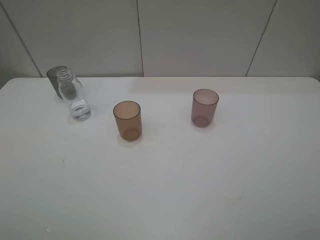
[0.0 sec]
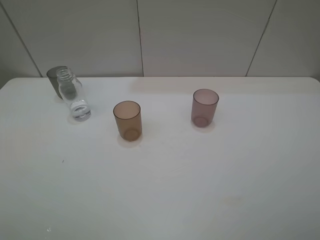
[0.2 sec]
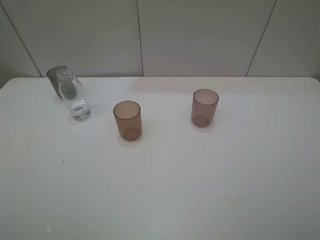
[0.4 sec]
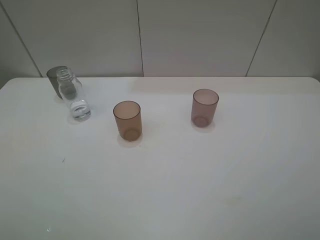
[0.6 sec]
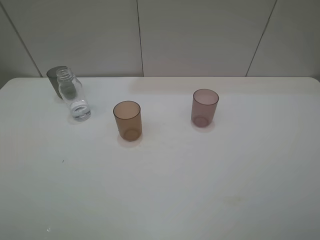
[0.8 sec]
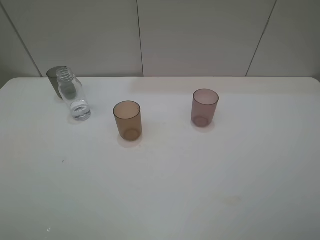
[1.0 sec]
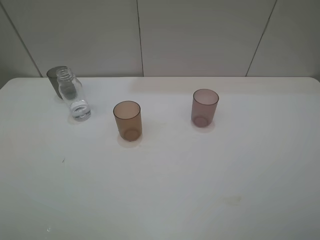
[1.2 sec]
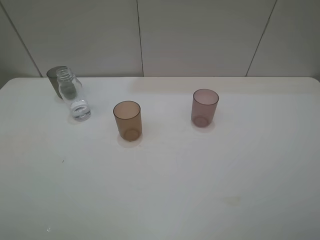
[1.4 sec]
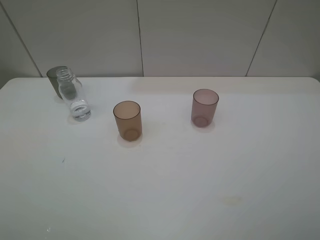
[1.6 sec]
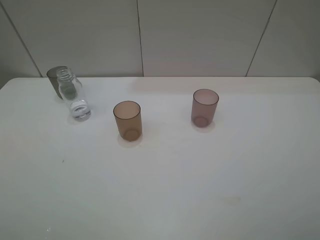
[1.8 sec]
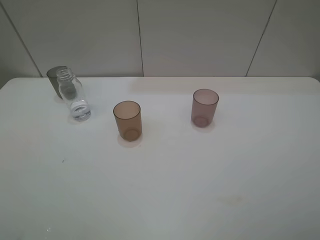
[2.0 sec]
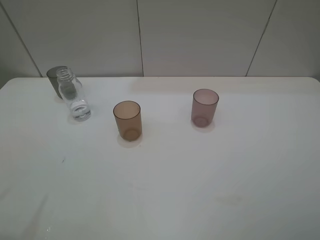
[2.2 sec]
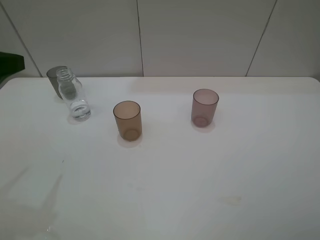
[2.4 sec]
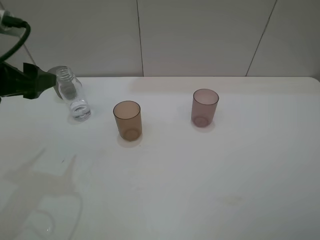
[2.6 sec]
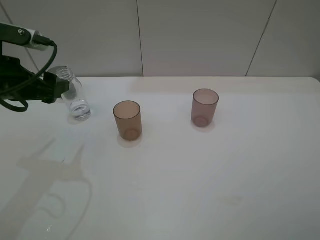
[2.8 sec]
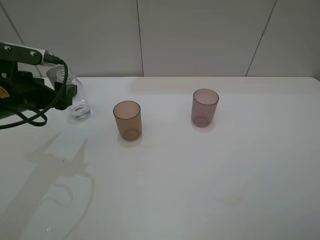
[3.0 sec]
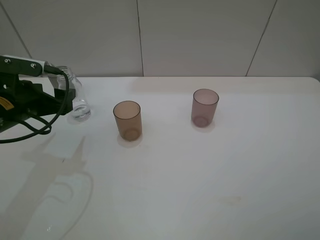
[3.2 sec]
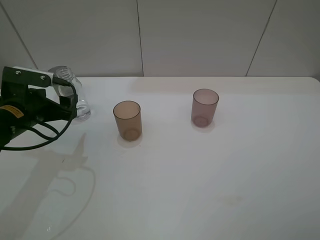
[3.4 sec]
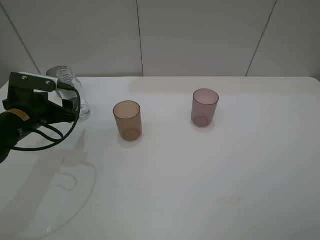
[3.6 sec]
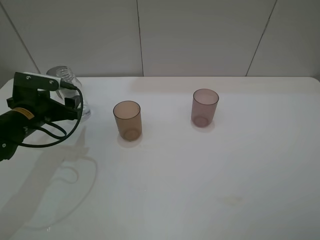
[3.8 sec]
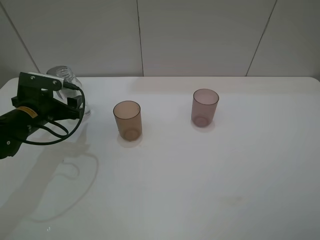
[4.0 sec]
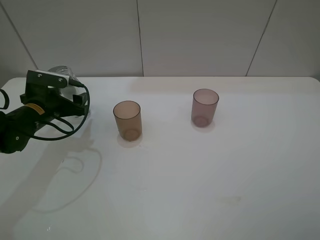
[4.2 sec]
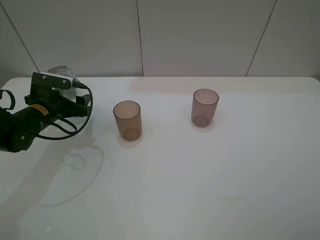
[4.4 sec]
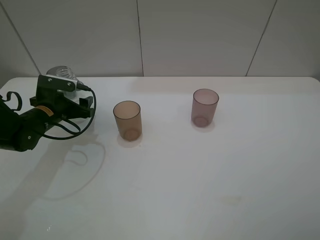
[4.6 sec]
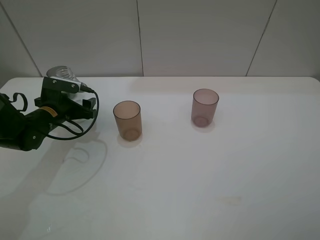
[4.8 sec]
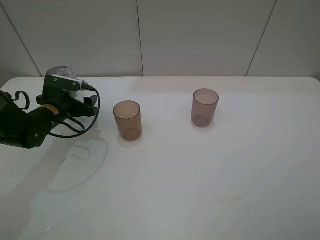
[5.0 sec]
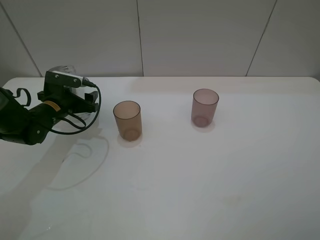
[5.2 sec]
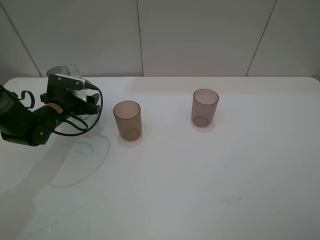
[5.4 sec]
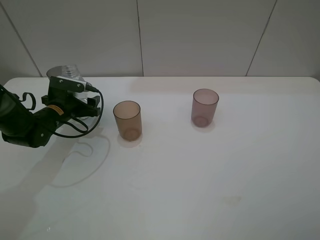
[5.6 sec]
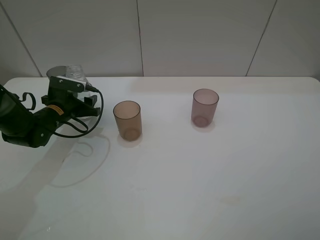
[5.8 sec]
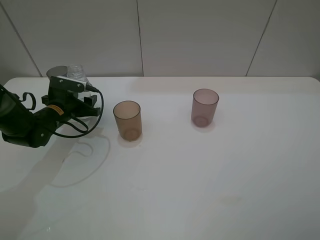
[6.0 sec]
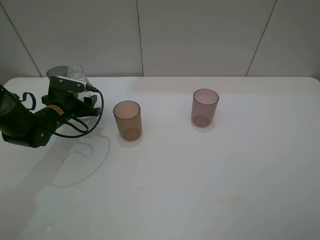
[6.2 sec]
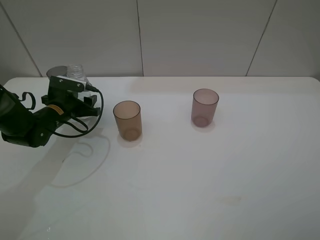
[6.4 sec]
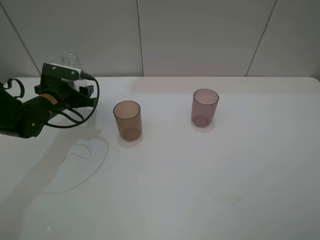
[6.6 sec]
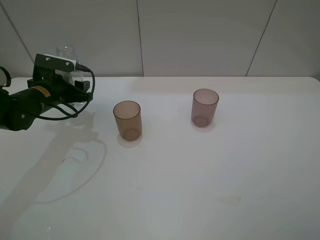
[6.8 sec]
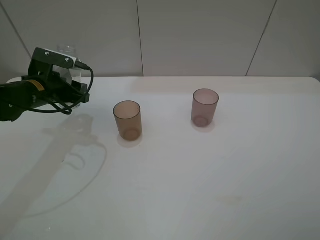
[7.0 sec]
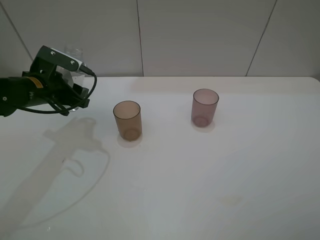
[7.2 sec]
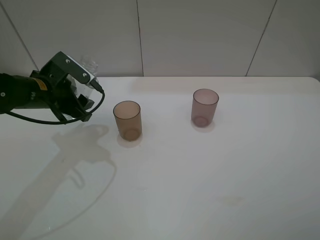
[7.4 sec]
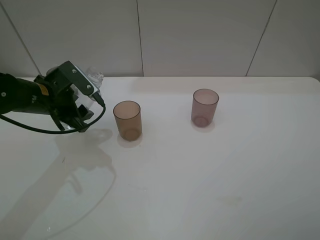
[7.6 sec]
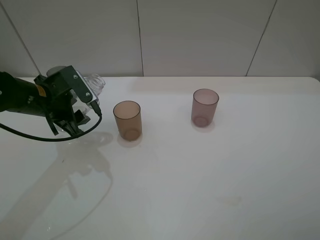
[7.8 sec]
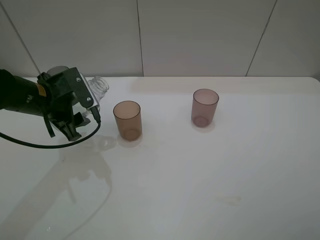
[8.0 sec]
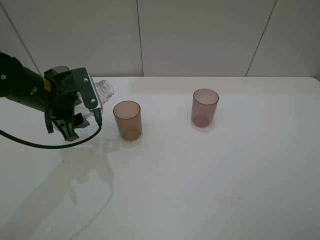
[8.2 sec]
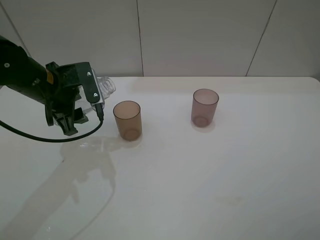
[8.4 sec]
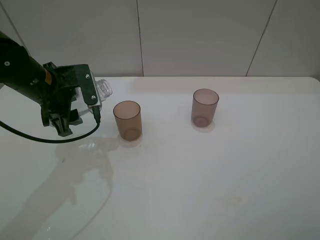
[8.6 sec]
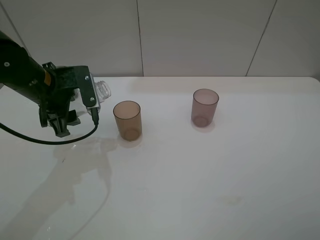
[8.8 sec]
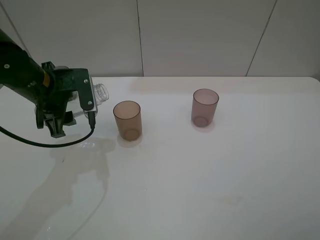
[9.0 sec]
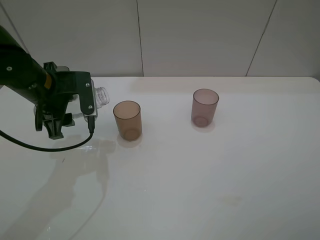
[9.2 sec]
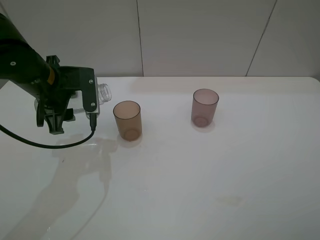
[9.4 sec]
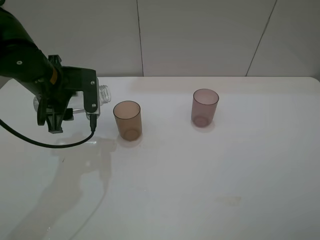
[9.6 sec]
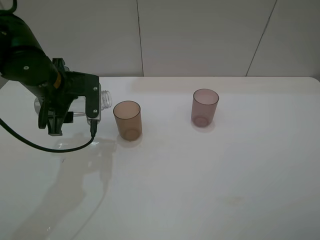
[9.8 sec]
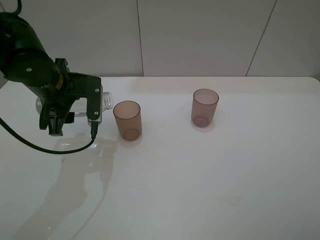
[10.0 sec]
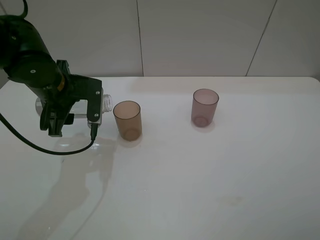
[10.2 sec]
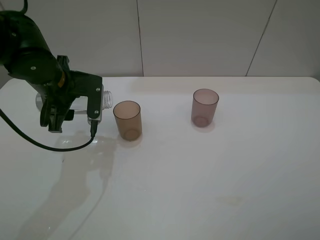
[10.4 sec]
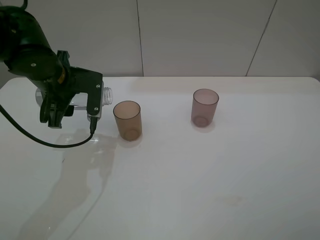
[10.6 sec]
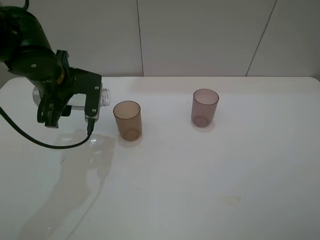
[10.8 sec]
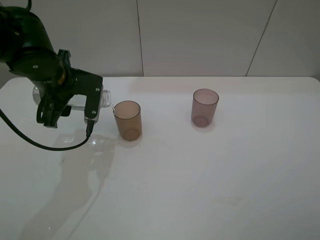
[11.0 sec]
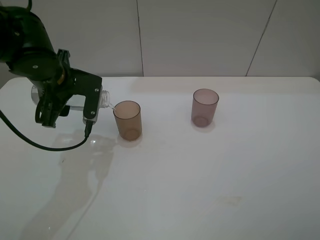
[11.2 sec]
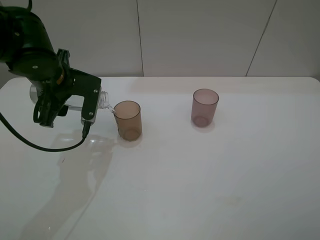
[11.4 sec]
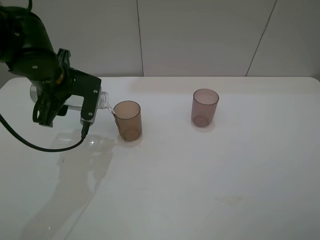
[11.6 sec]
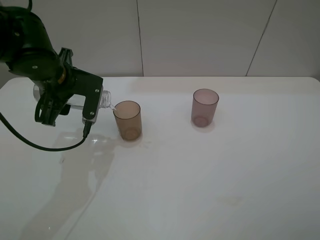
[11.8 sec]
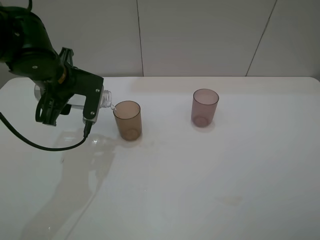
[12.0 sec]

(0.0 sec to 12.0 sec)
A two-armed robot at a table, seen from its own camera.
Task of the whole recording: pick up the bottle filled with water and pour water into the middle cup of the three cups.
0.0 sec - 1.6 sec: Both grippers stay put.
1.6 sec - 3.0 sec: The left gripper heads forward and downward, covering some 30 cm.
3.0 sec - 4.4 sec: The left gripper shifts about 10 cm downward and forward.
4.4 sec - 6.0 sec: The left gripper closes.
6.0 sec - 7.6 sec: The left gripper is displaced upward and backward by approximately 10 cm.
9.0 sec - 10.4 sec: The grippers stay close to where they were, moving slightly.
10.4 sec - 12.0 sec: The grippers stay close to where they were, moving slightly.

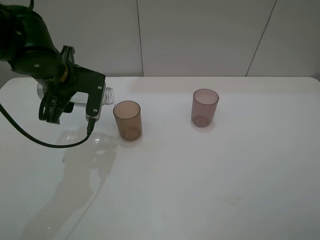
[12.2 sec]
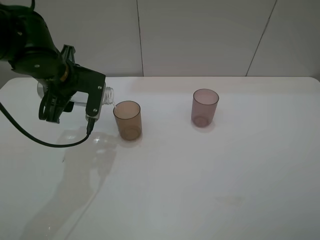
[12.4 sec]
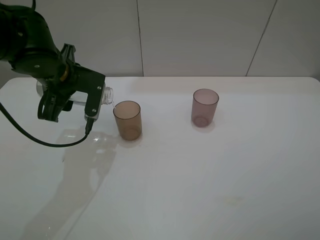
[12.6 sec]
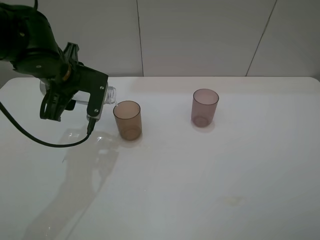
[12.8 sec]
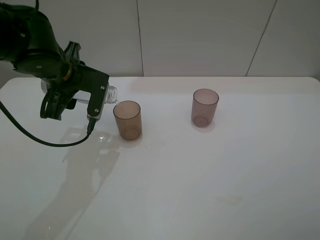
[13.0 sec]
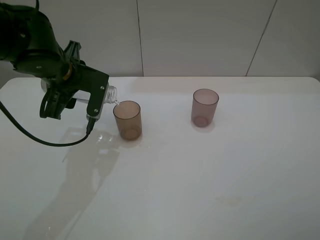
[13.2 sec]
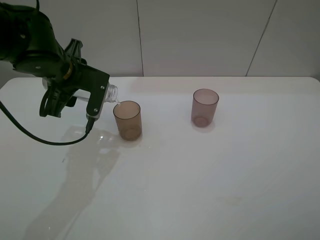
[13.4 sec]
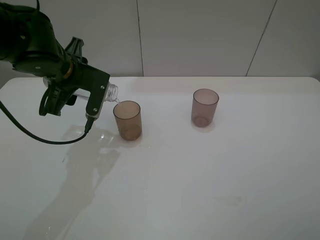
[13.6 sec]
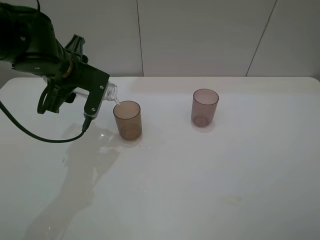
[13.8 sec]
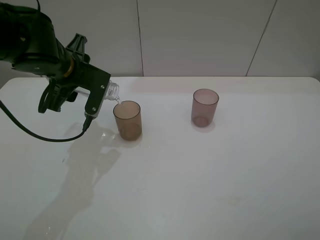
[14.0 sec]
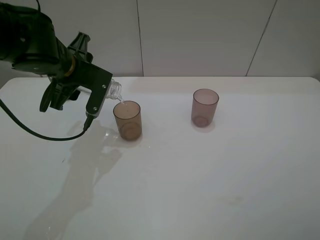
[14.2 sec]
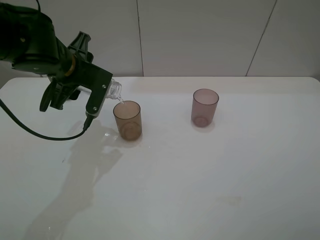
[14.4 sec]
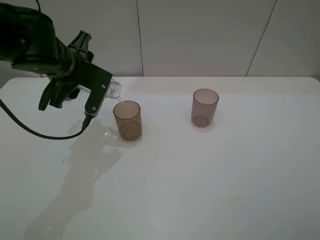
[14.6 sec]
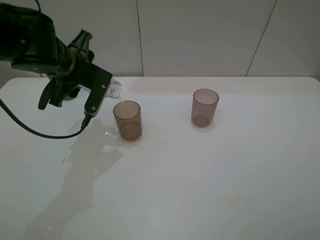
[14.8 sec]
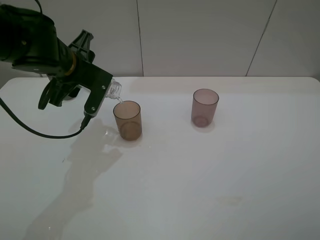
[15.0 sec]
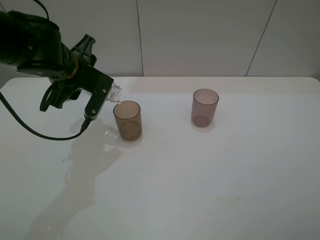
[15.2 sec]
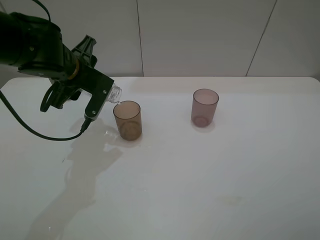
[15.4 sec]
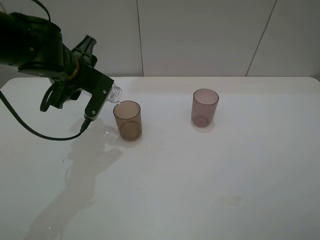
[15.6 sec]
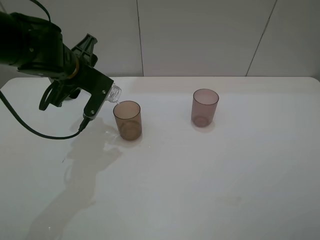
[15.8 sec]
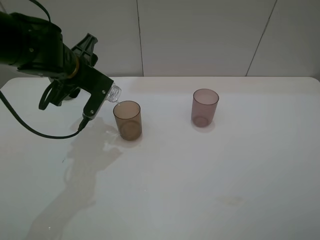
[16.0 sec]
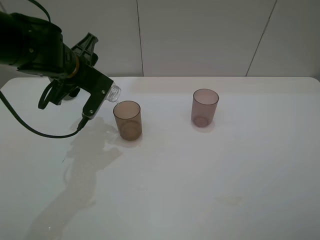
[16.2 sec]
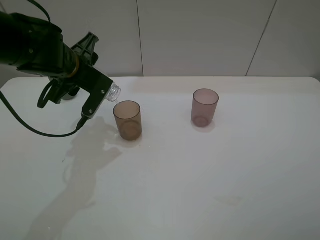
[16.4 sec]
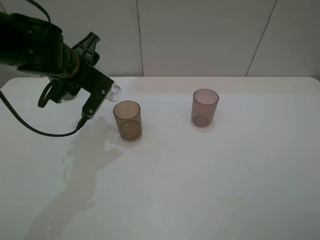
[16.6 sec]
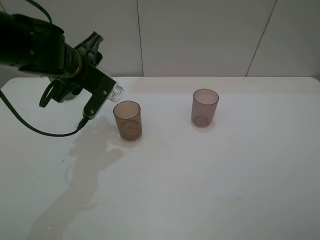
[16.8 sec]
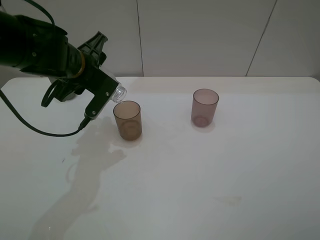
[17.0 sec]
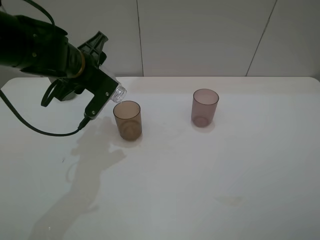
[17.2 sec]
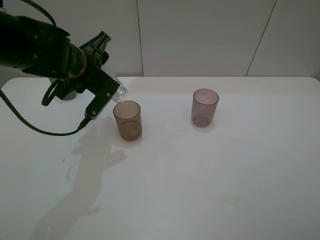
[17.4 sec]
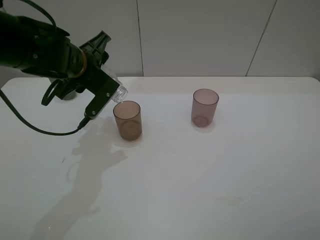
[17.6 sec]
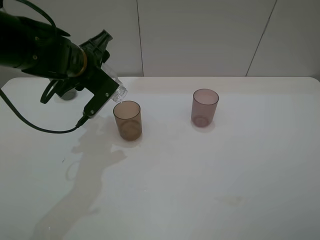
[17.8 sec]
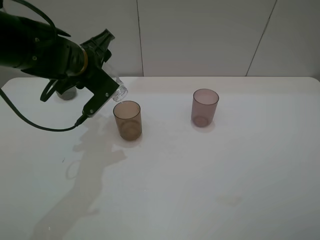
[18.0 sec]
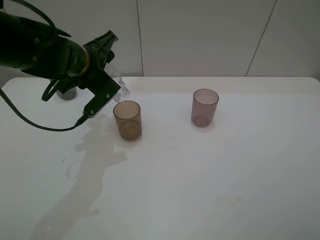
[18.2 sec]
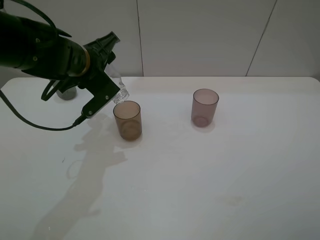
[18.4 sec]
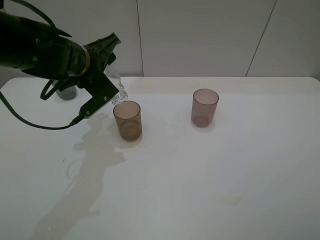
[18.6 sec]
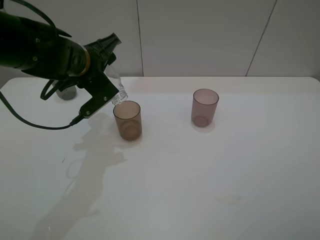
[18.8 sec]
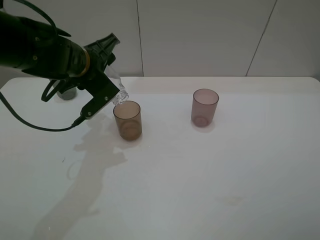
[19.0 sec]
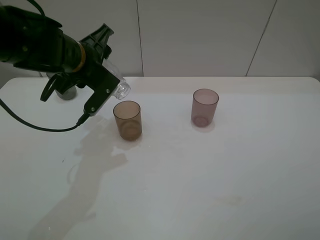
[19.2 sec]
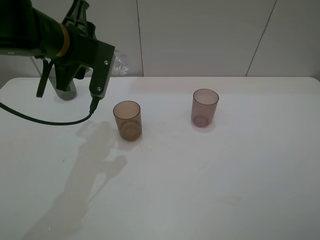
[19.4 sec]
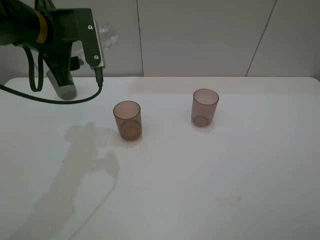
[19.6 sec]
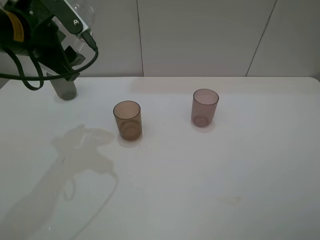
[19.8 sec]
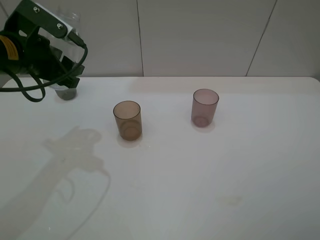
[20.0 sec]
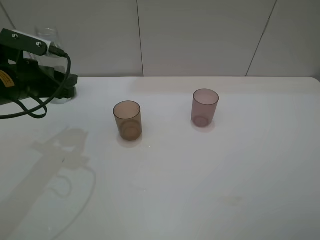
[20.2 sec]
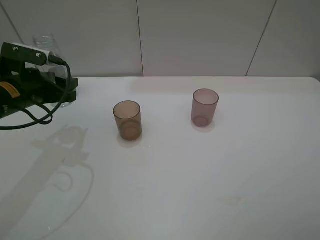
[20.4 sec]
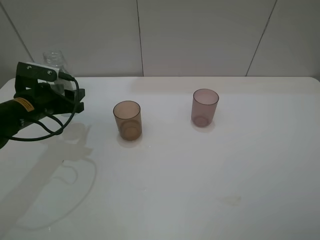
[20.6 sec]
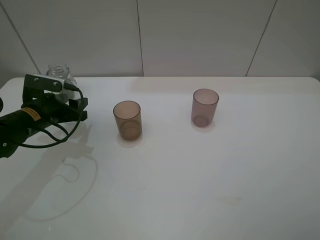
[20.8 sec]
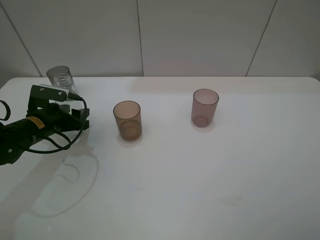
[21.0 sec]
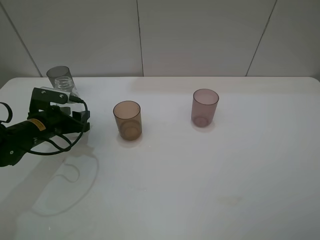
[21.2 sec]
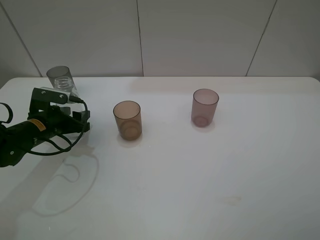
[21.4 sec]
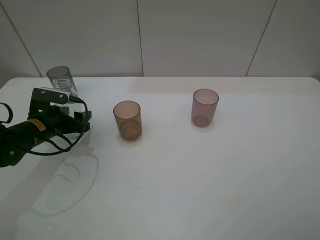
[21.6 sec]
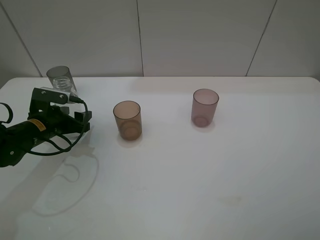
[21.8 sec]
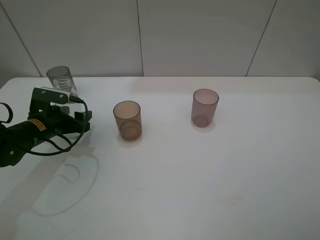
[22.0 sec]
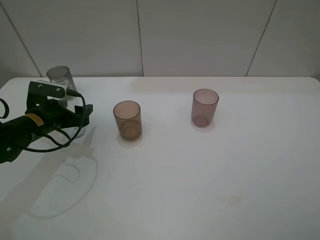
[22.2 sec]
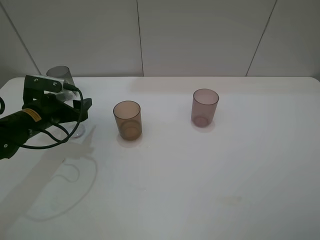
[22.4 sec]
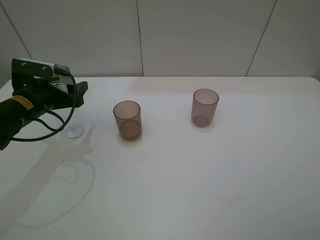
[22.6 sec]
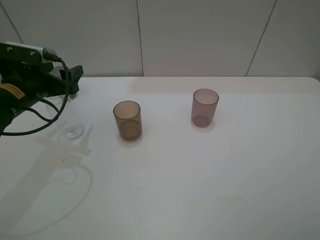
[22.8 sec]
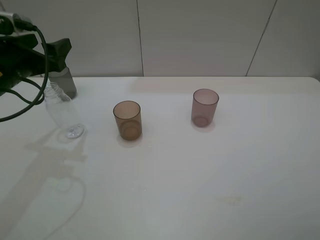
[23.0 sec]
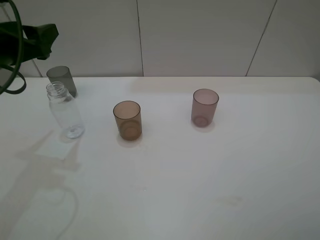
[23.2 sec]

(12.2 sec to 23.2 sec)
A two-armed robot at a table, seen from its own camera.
Task of the whole recording: pick up the bottle filled with water and pour water into the middle cup of the three cups.
12.2 sec - 13.8 sec: The grippers stay close to where they were, moving slightly.
13.8 sec - 17.0 sec: There are only small adjustments of the grippers.
17.0 sec - 18.4 sec: The grippers make only small movements.
18.4 sec - 20.0 sec: The left gripper moves to the left, some 10 cm.
20.0 sec - 21.6 sec: The left gripper goes some 15 cm downward, and opens.
21.6 sec - 23.2 sec: The left gripper moves upward, some 20 cm, and opens its fingers.
